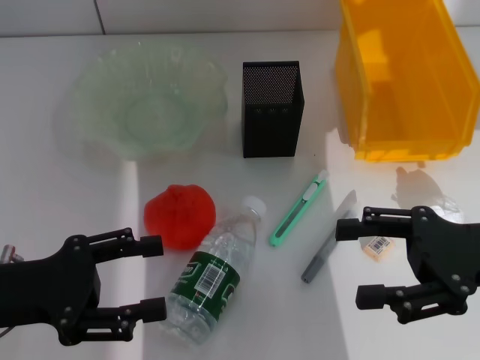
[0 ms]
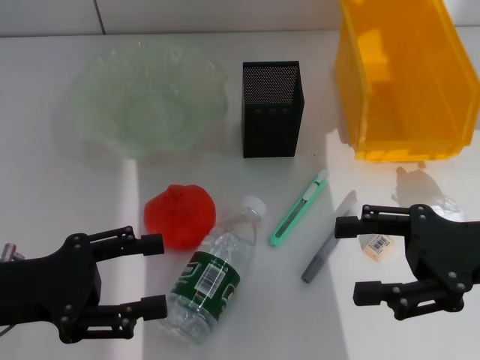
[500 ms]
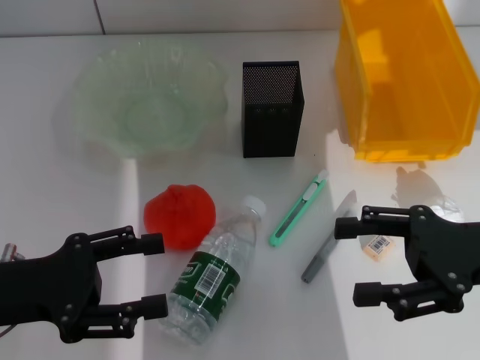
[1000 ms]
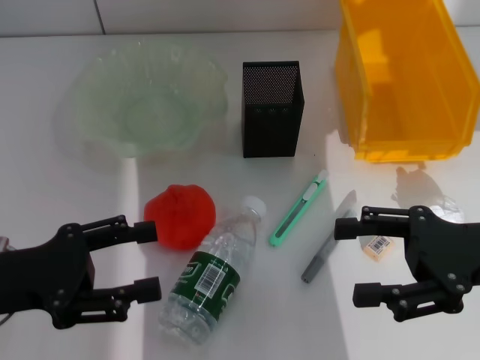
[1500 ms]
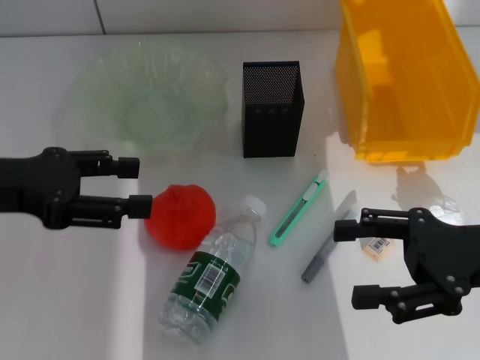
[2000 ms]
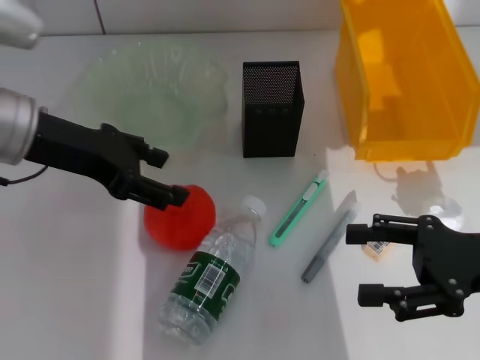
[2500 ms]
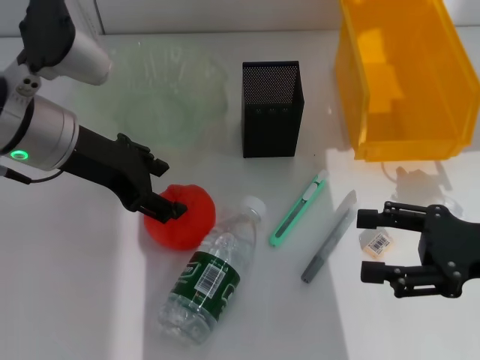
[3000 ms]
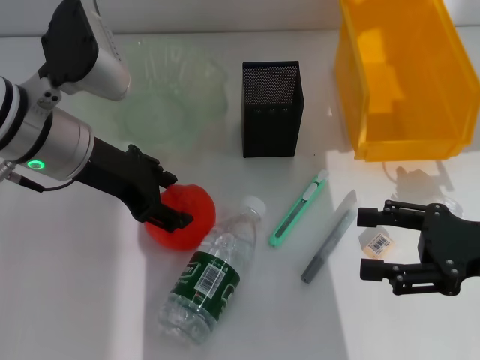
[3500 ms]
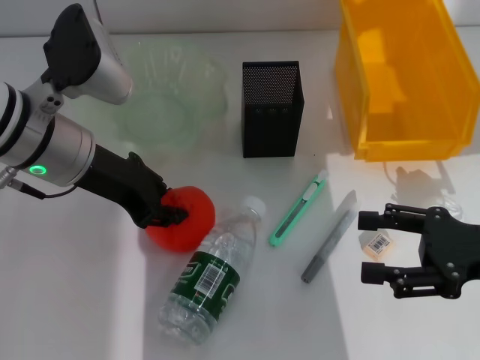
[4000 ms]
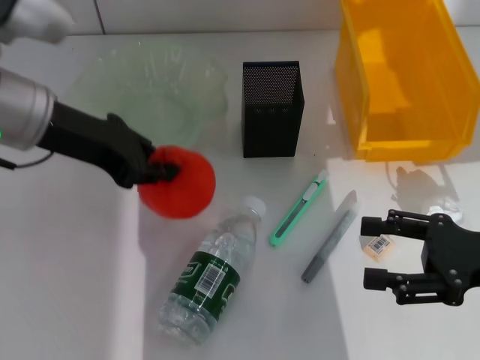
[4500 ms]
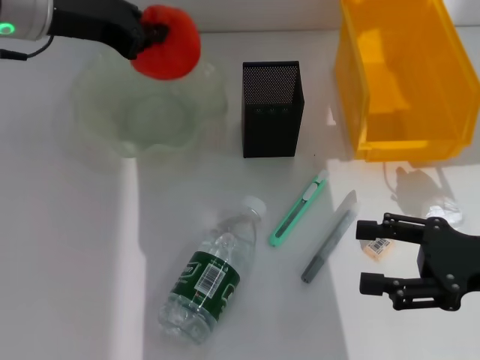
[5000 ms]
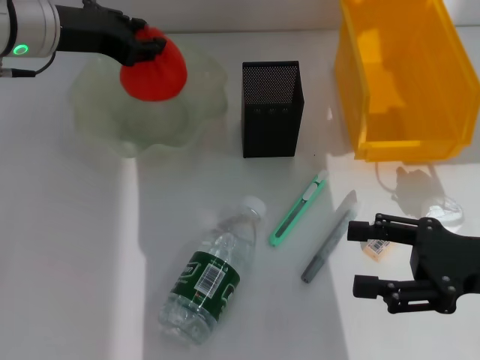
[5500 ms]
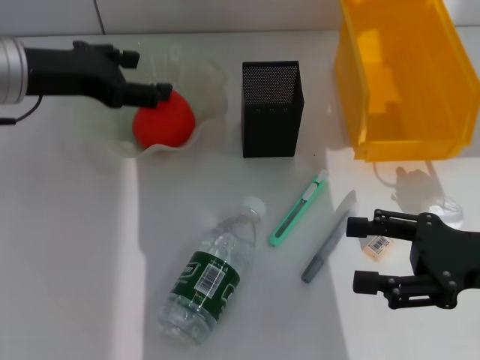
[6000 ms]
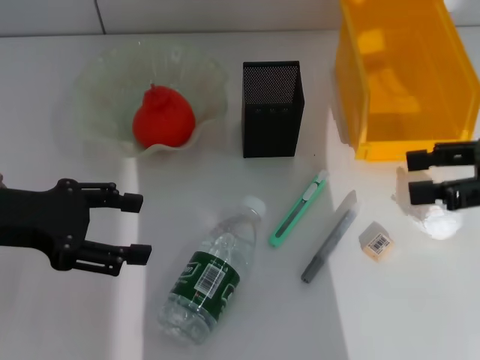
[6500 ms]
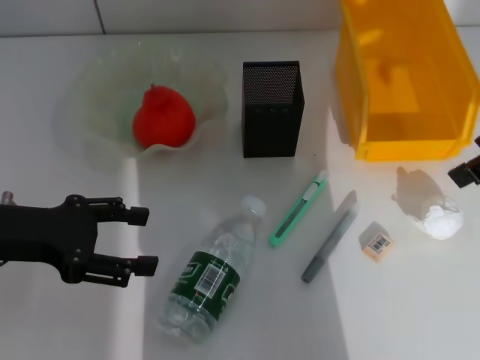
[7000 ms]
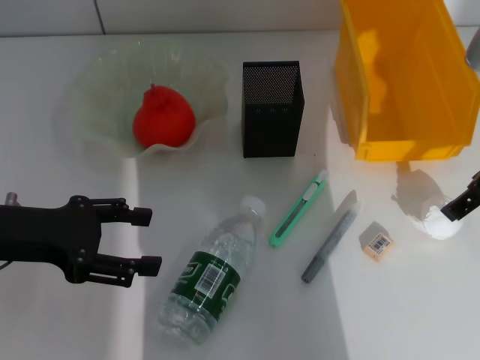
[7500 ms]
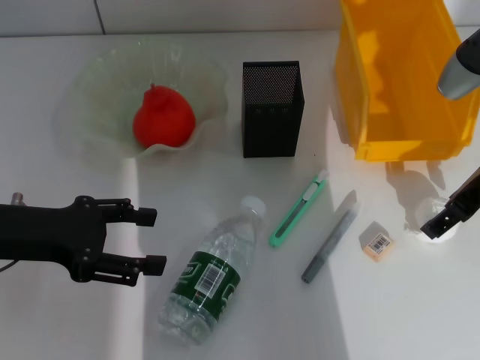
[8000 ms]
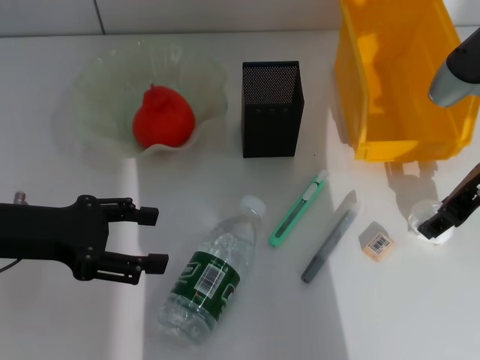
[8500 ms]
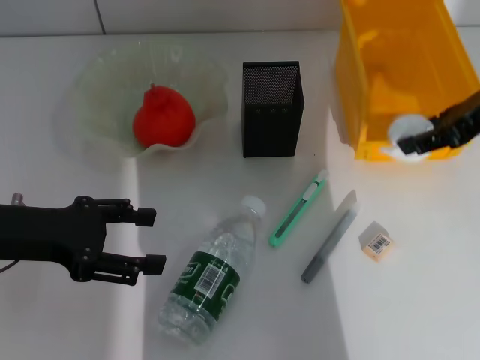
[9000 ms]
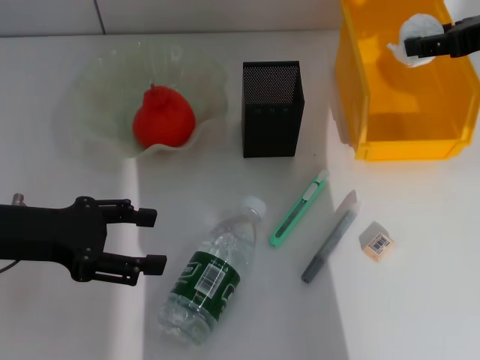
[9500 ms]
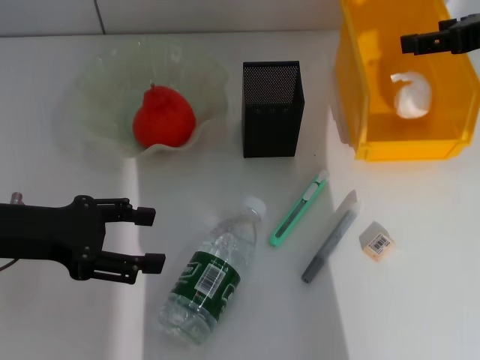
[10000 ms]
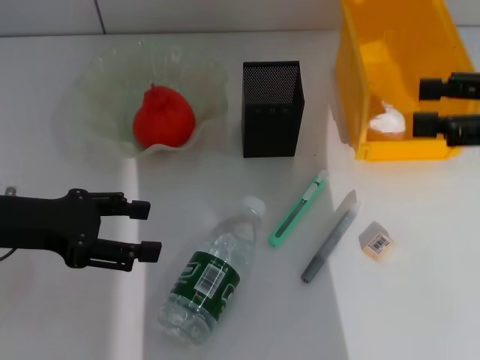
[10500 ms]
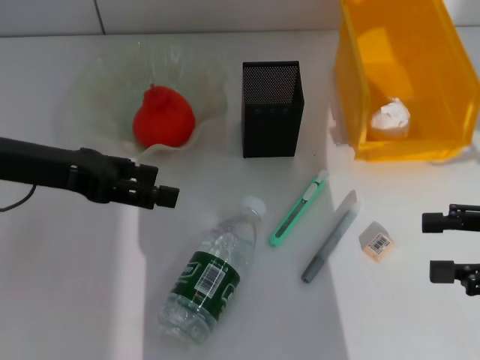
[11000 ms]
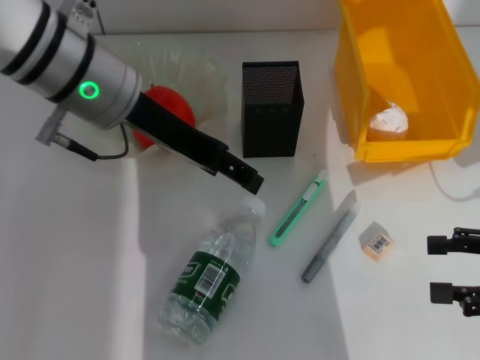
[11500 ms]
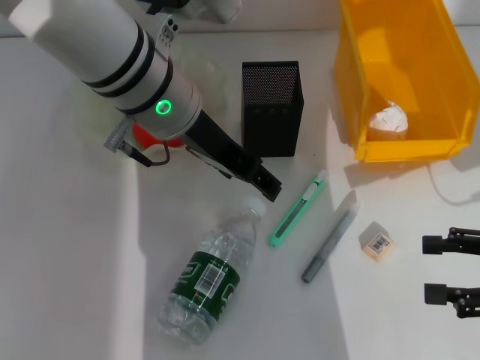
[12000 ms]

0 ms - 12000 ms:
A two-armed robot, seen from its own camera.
Step, 0 ms - 3500 ms: Grab the orange with the left hand.
Step, 4500 ms - 5500 ms: Place the orange into the fruit bowl with the left hand.
Step, 6000 ms - 8000 ms: Grab the paper ball with the right hand.
Step, 8500 ms - 11000 ms: Place the paper ball into the trash can with the right hand.
0 ms - 2000 ms: The left gripper heads upward and forward, covering some 10 cm.
2000 ms - 4000 ms: The left gripper travels to the right and forward by about 10 cm, and closes up.
4000 ms - 6000 ms: The left gripper moves to the left, some 5 cm, and closes, then reopens.
6000 ms - 8000 ms: The left gripper heads backward and downward, covering roughly 10 cm. Meanwhile the right gripper goes about 15 cm forward and upward.
8000 ms - 10000 ms: The right gripper heads upward, covering about 5 cm, and closes and opens again.
10000 ms - 12000 ms: The right gripper shifts about 20 cm backward and downward. Meanwhile the left gripper shifts some 25 cm to the right, forward and upward.

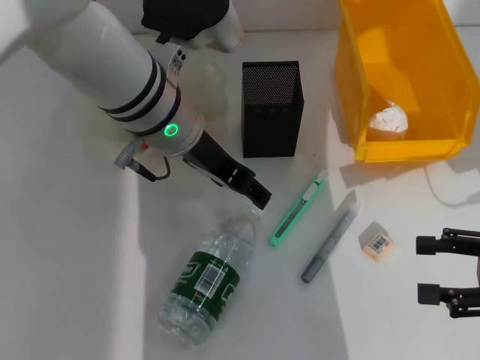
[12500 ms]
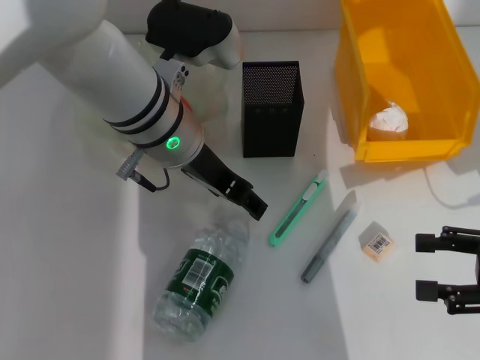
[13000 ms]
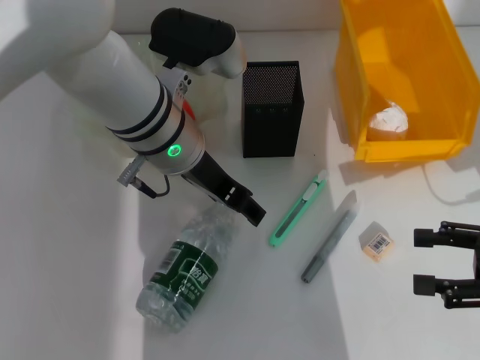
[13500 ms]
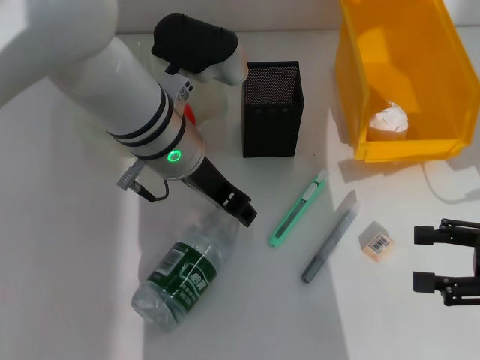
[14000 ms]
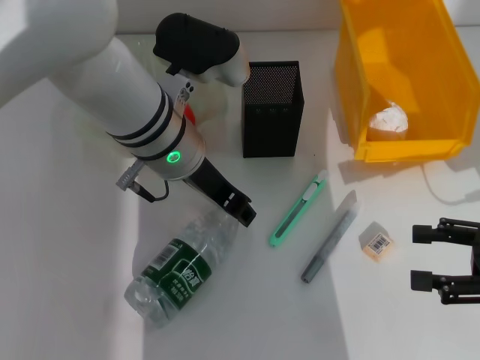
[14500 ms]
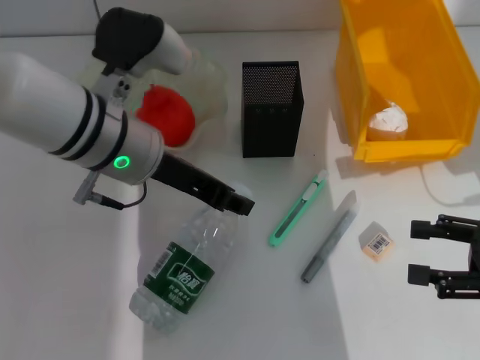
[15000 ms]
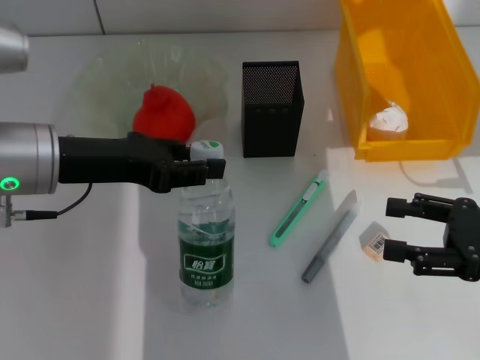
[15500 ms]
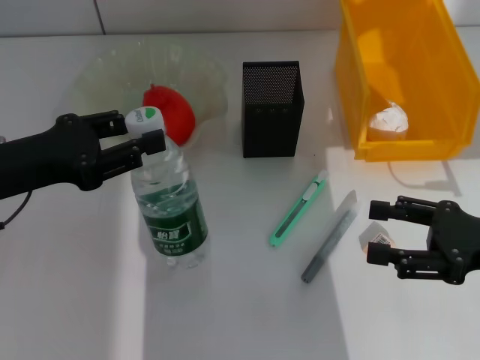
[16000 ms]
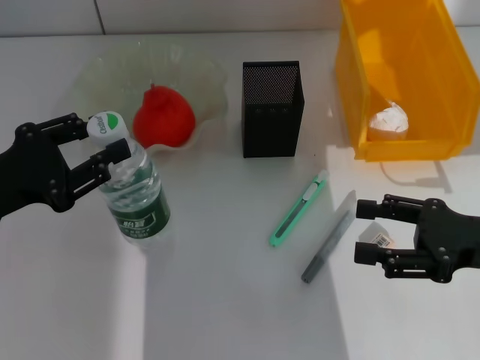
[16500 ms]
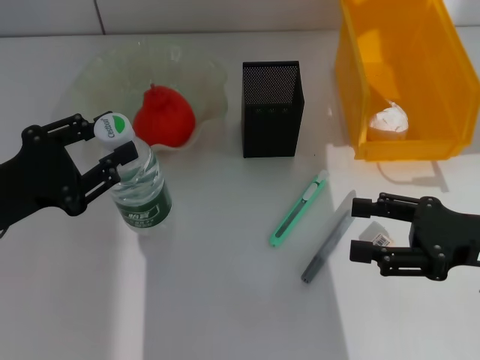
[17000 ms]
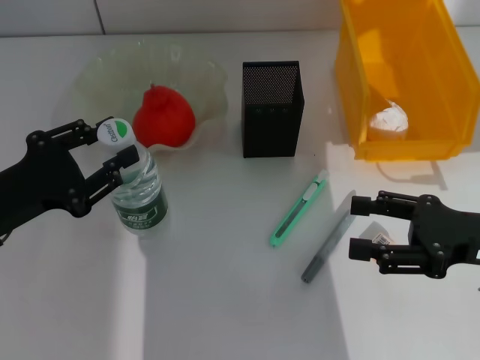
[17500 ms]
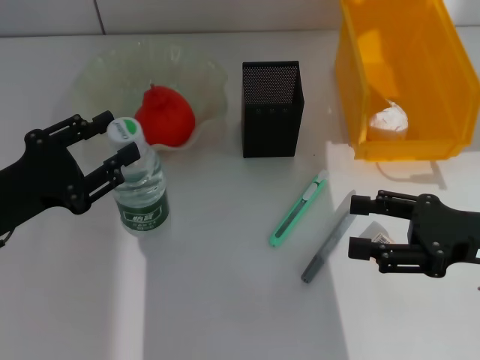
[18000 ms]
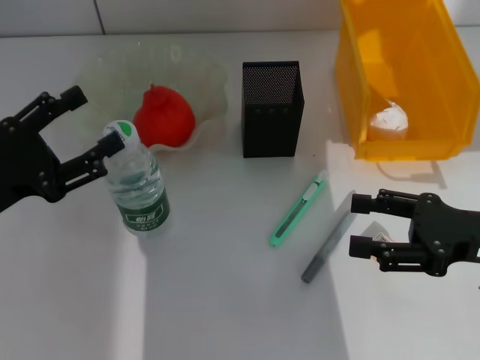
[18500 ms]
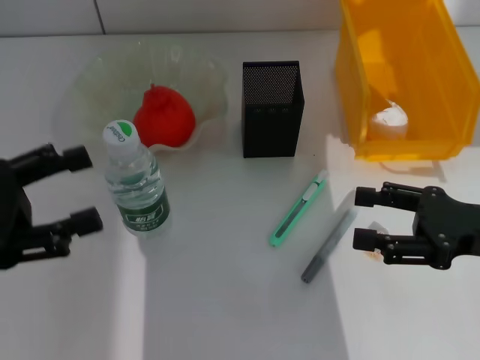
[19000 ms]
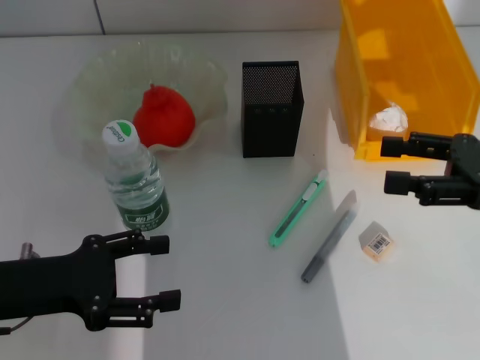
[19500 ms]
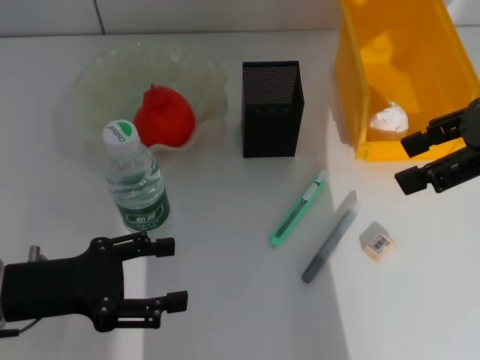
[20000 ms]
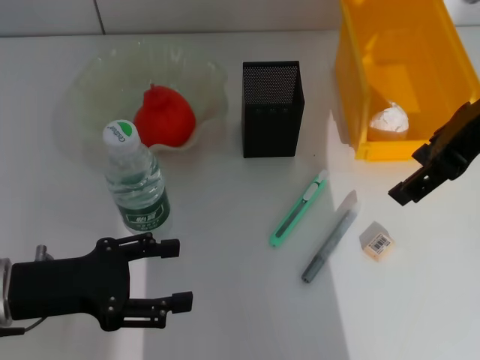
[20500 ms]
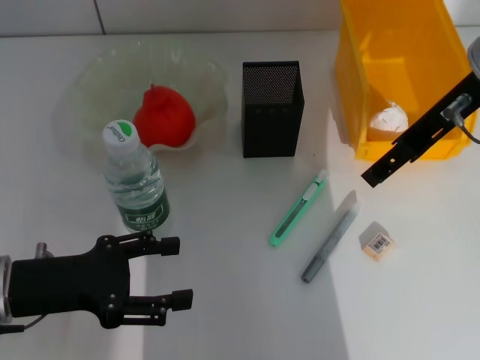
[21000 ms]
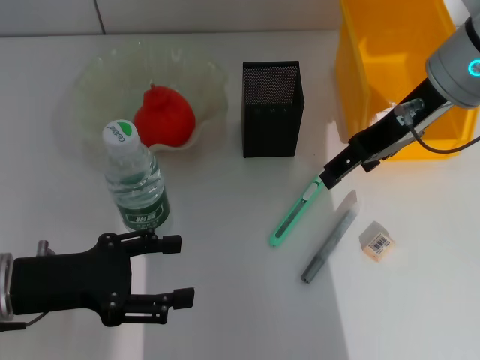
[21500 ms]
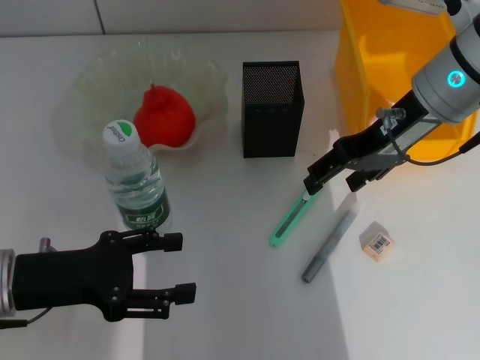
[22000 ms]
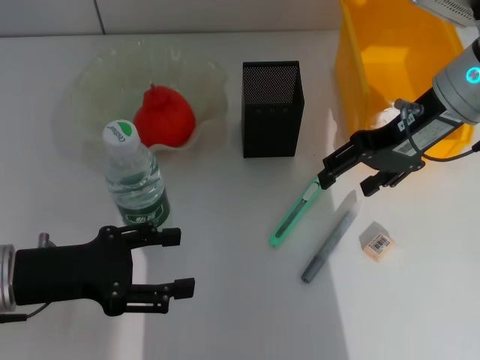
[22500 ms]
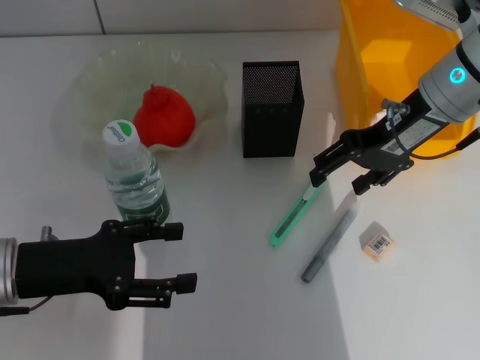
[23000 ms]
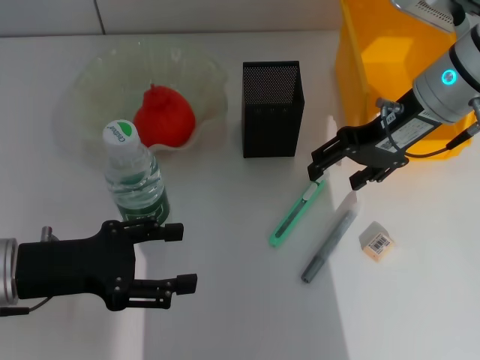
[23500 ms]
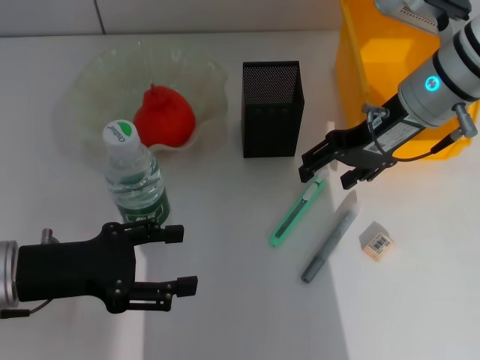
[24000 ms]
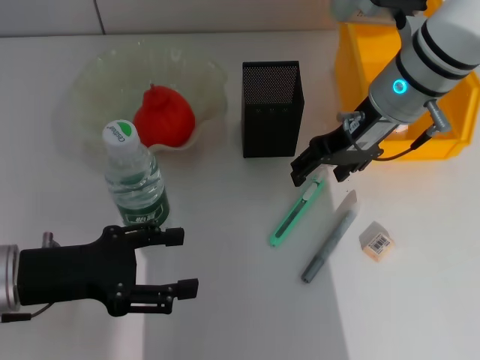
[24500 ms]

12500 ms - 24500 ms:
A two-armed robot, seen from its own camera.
Step, 12500 ms - 14000 ms: Grab the water bottle with the left hand.
Step, 14500 ms - 18000 ms: Place the water bottle on the table with the left hand.
12500 ms - 14500 ms: The left gripper closes.
14500 ms - 16500 ms: The right gripper shifts by some 5 cm, while the left gripper is displaced to the left and backward by roughly 25 cm.
16500 ms - 18500 ms: The left gripper opens its fingers.
18500 ms - 20500 ms: The right gripper heads upward, forward and to the left, covering some 20 cm.
20500 ms - 22500 ms: The right gripper heads downward, covering roughly 10 cm.
22500 ms - 24500 ms: The right gripper heads to the left, covering some 5 cm.

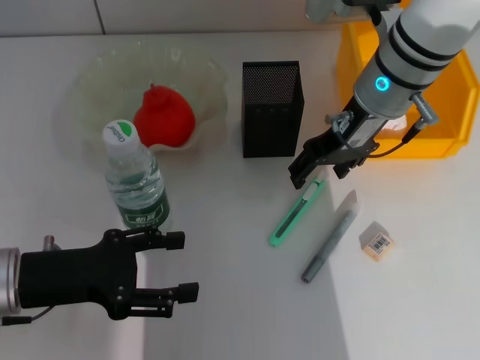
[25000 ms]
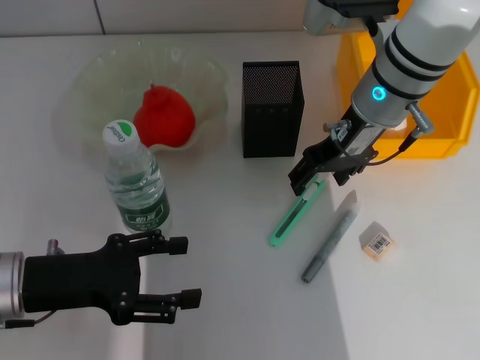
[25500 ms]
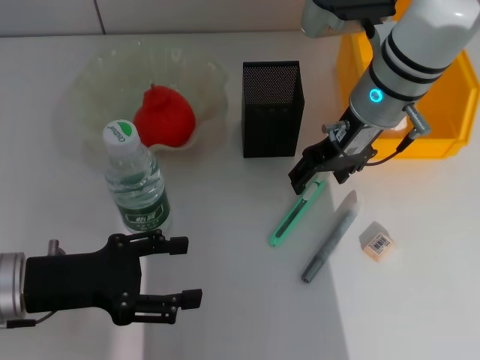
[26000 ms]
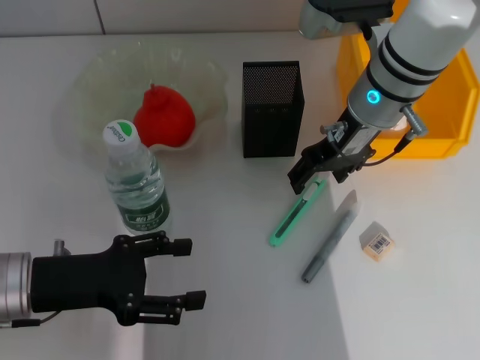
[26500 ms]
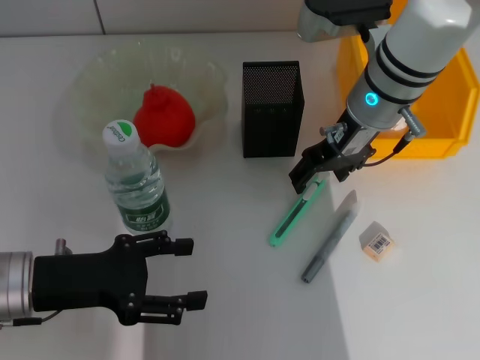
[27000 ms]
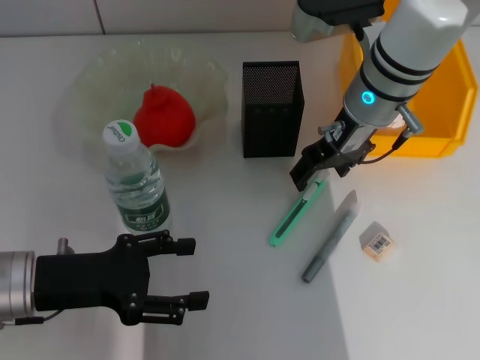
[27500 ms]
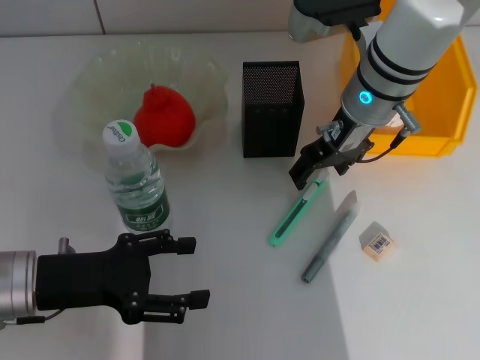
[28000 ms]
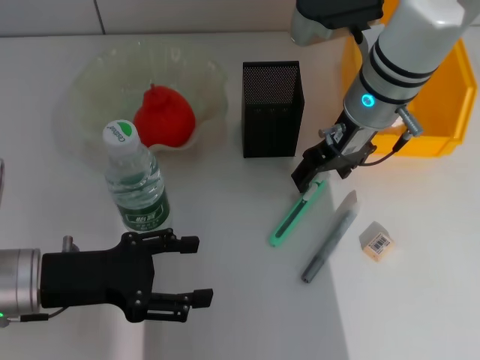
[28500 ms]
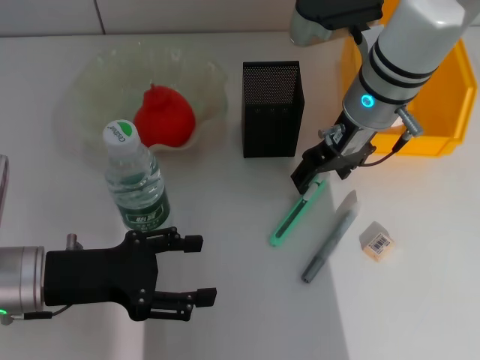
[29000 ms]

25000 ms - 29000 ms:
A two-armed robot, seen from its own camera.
25000 ms - 27000 ms: There are only small adjustments of the grippers.
27000 ms - 29000 ms: Both grippers stay about where they are.
